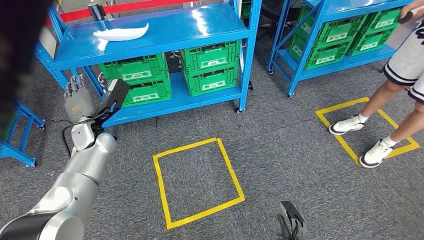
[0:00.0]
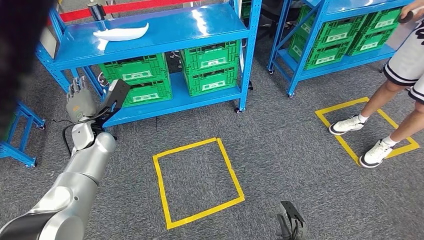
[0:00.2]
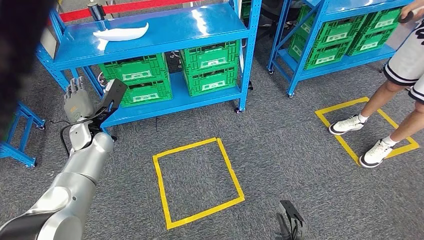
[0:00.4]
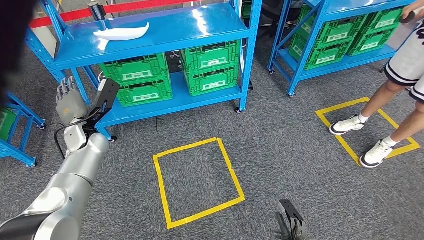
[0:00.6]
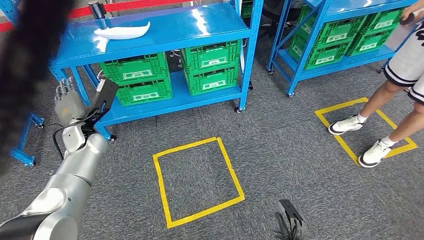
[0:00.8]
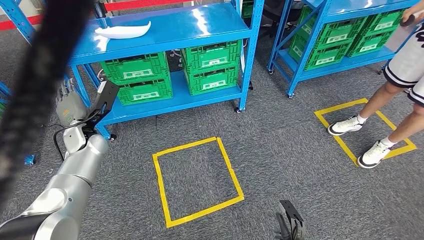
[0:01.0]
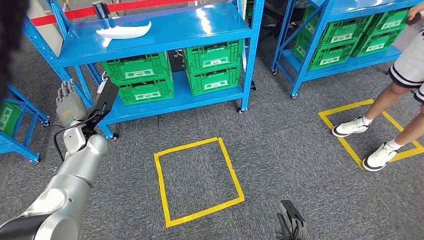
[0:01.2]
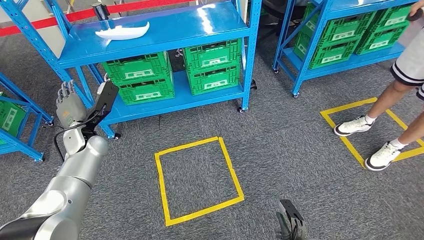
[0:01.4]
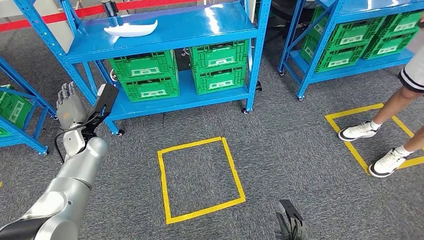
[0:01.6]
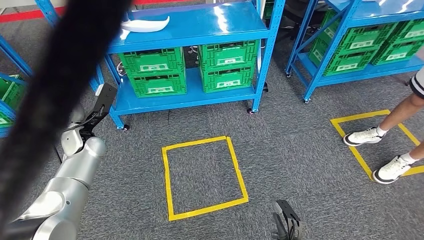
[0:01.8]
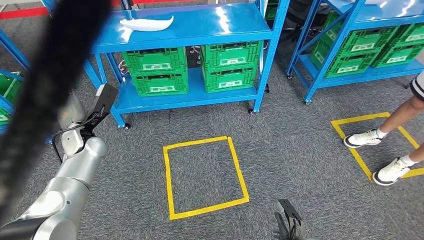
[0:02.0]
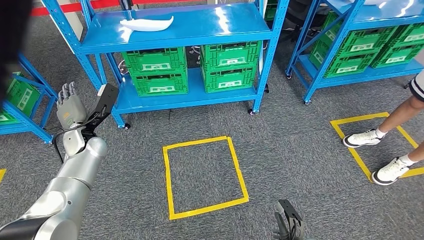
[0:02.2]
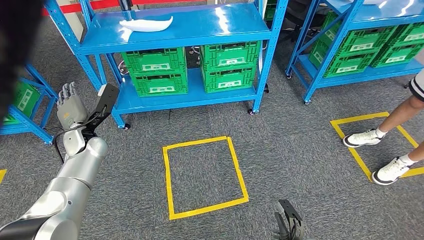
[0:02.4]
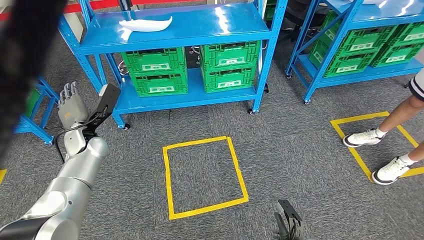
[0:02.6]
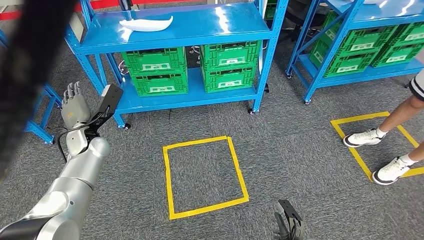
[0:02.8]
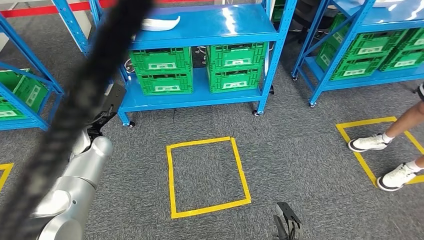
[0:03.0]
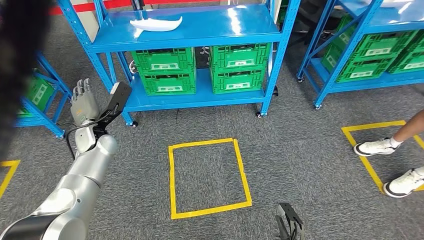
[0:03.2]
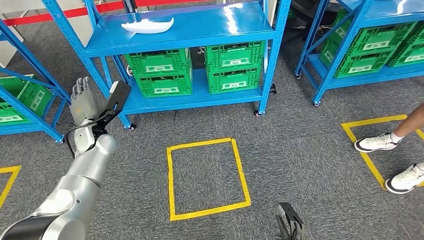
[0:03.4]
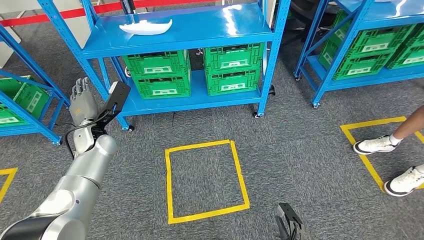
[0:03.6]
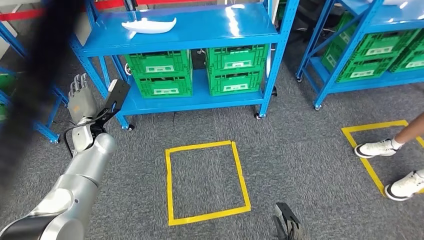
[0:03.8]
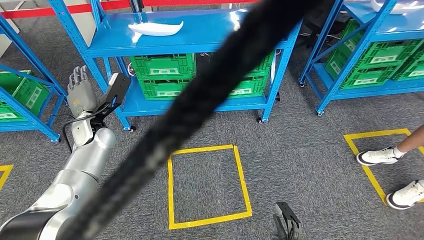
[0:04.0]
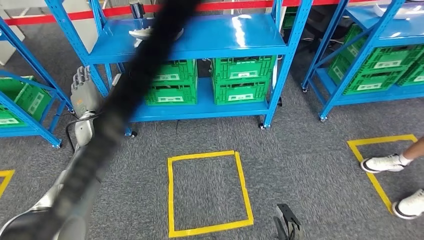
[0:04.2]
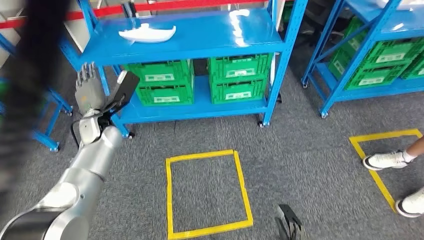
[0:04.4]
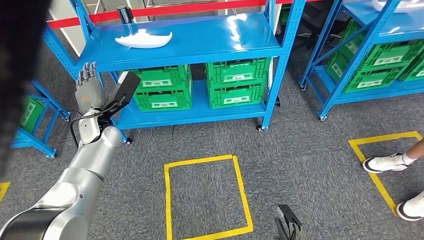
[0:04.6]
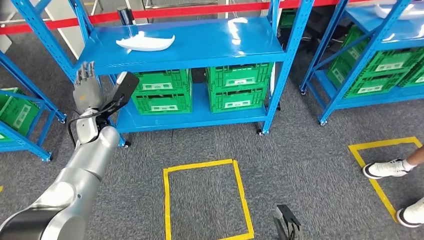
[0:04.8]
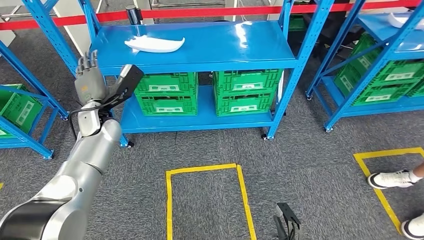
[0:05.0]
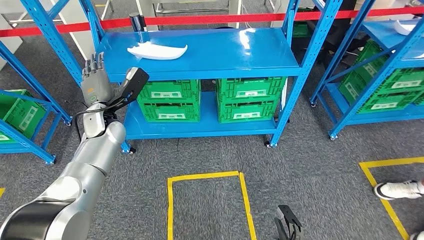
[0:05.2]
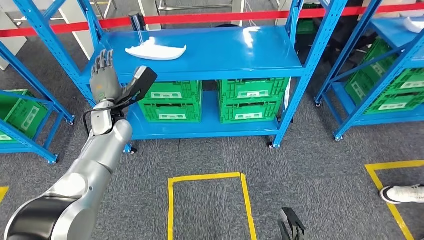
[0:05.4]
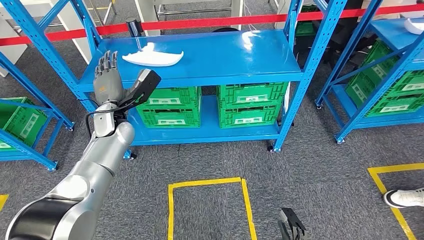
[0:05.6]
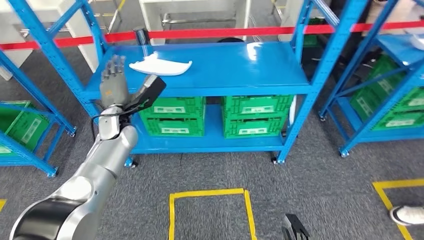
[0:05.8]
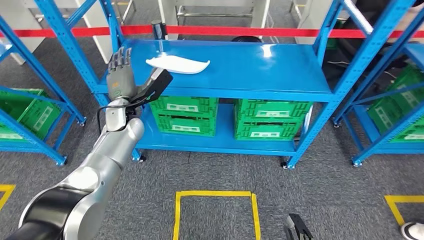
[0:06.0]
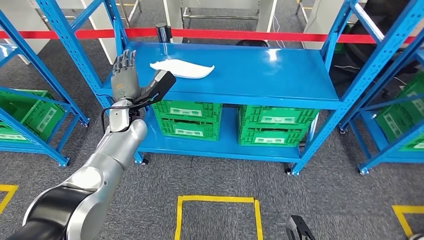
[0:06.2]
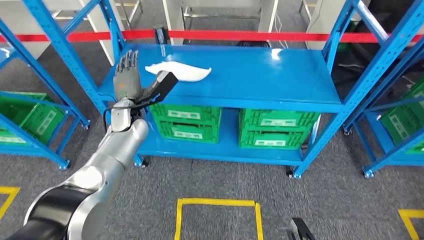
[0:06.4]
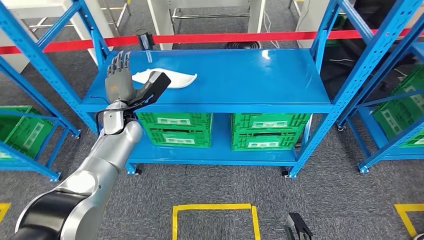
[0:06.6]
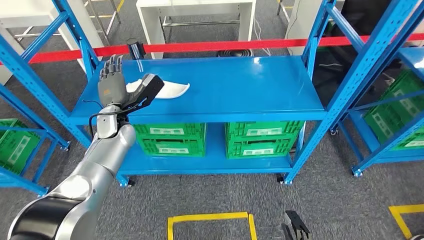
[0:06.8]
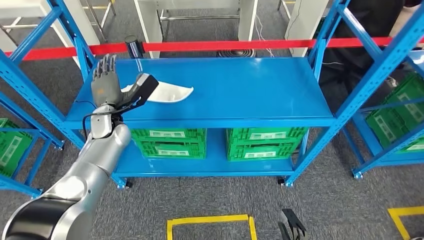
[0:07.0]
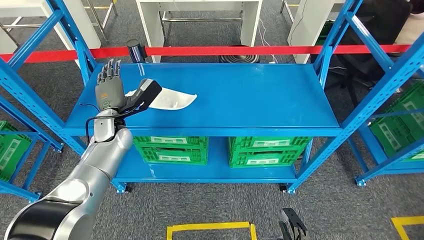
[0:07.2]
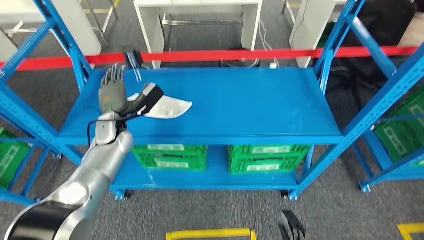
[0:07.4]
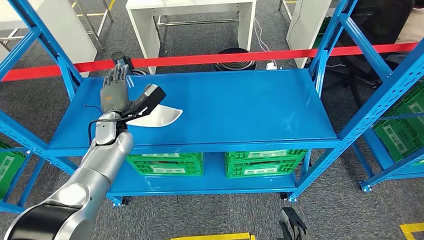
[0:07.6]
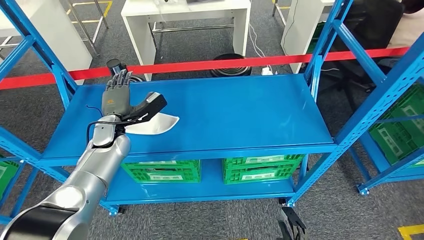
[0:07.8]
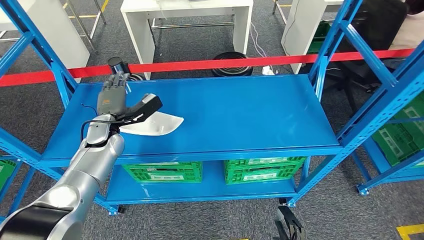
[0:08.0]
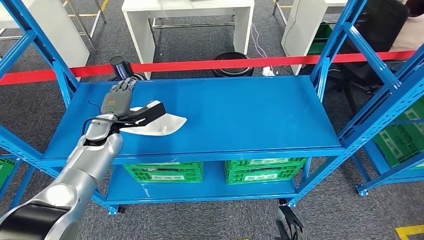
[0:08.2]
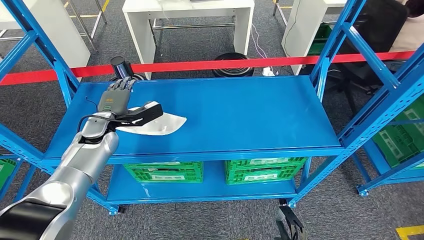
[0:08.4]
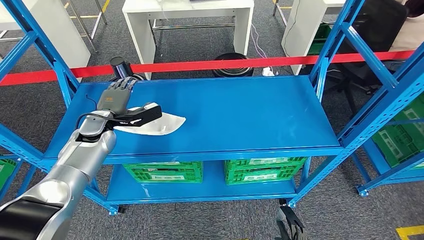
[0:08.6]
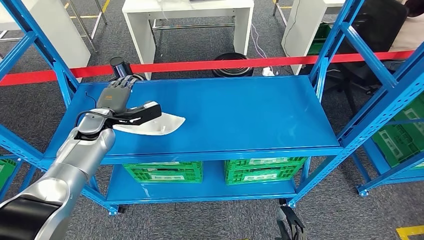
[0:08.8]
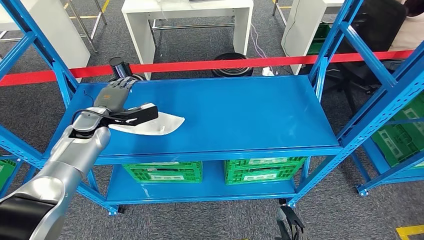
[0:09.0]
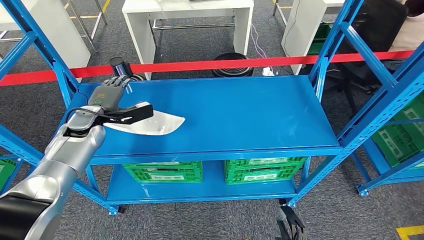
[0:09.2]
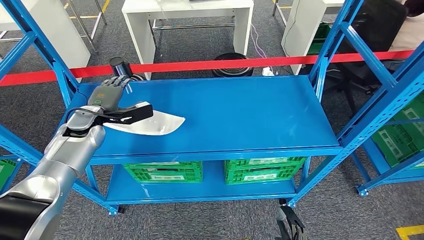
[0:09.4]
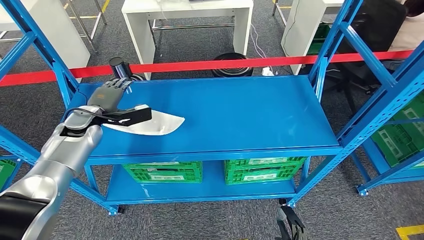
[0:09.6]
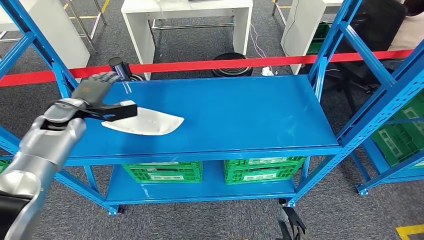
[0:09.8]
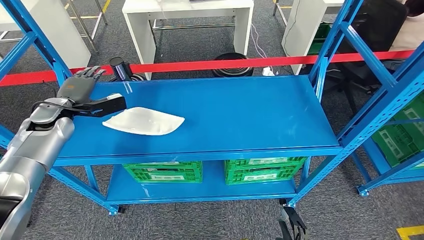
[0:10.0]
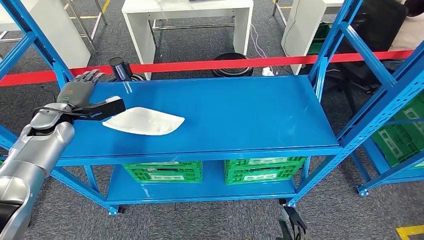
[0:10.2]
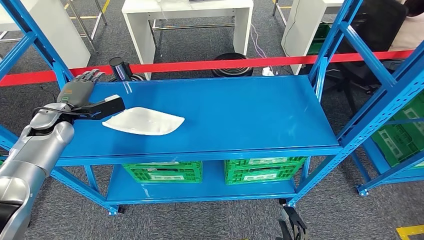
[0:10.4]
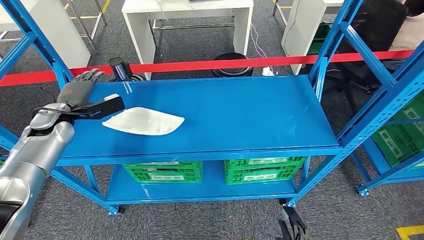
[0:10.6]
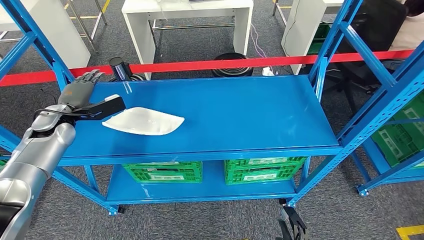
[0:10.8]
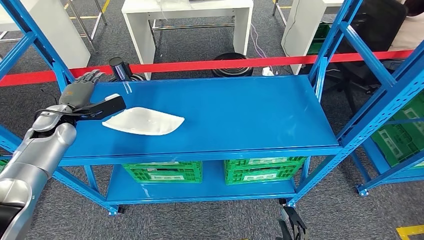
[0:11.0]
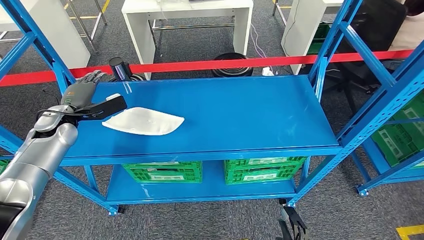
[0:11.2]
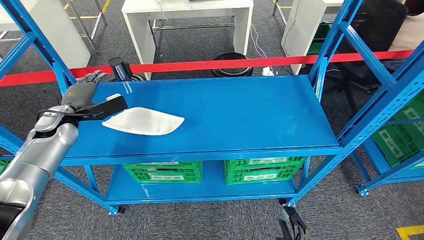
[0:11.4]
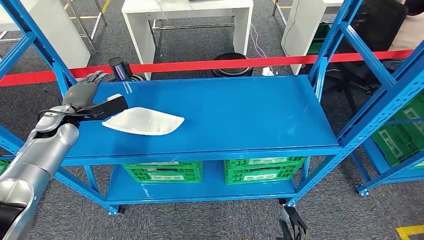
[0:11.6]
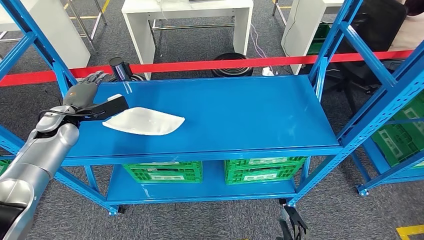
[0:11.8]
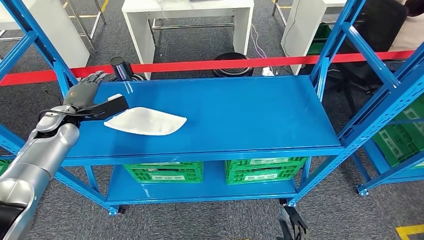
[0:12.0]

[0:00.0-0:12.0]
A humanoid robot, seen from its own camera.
0:09.0 to 0:10.4: The left hand is displaced to the left by about 10 cm.
0:10.4 to 0:12.0: There are only small adjustments of the hands.

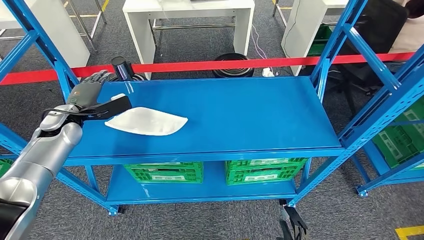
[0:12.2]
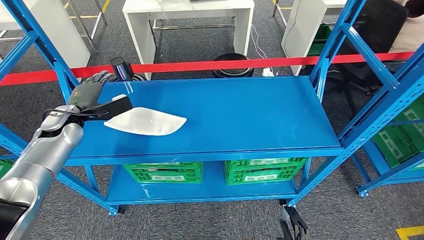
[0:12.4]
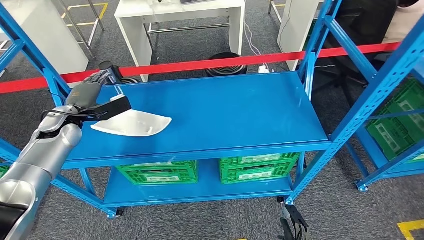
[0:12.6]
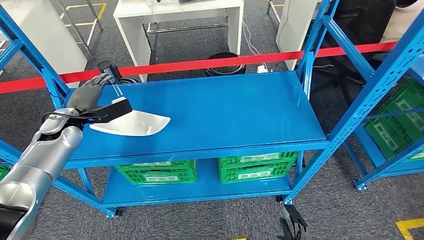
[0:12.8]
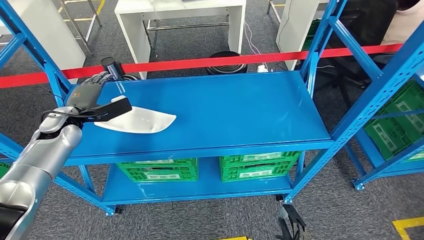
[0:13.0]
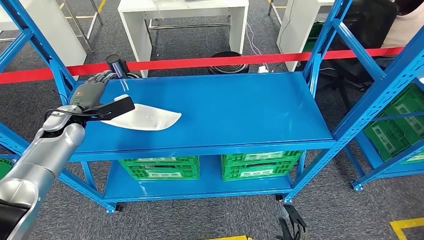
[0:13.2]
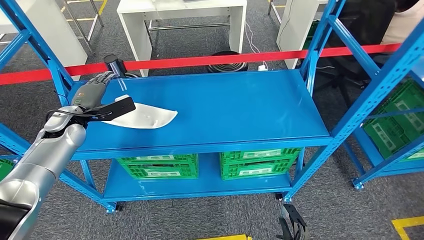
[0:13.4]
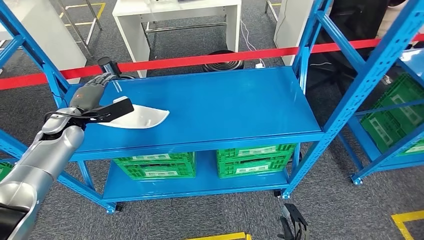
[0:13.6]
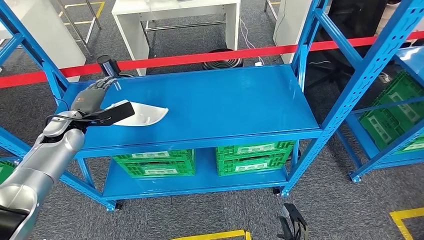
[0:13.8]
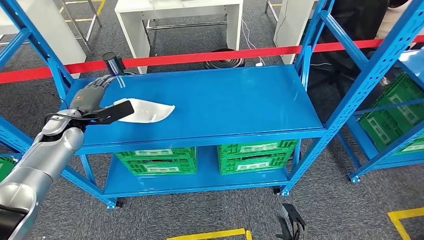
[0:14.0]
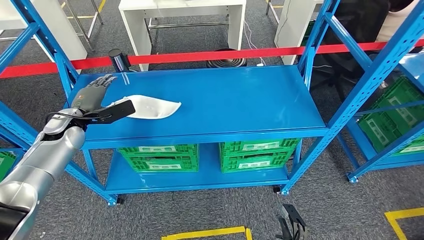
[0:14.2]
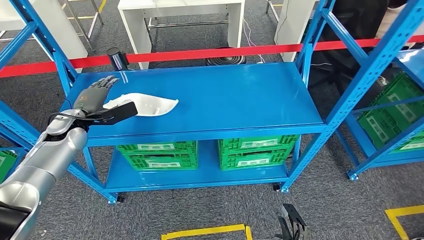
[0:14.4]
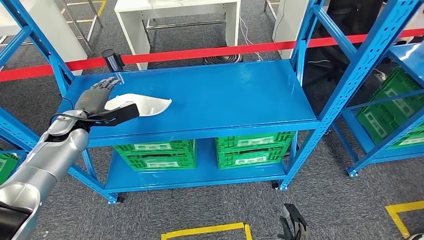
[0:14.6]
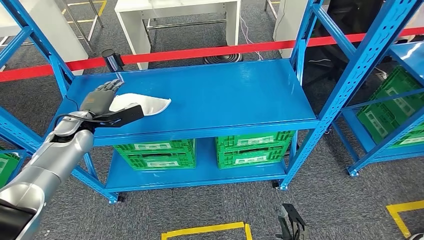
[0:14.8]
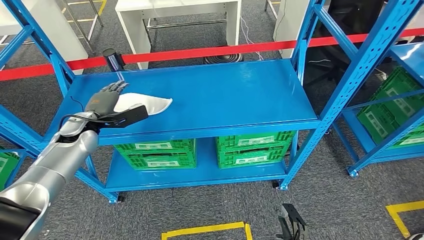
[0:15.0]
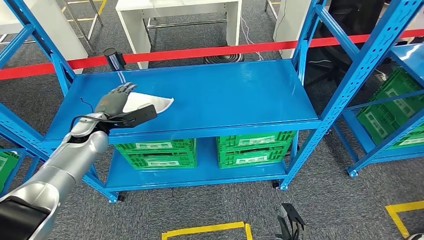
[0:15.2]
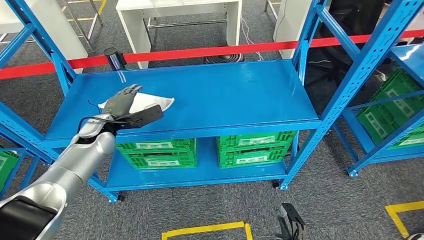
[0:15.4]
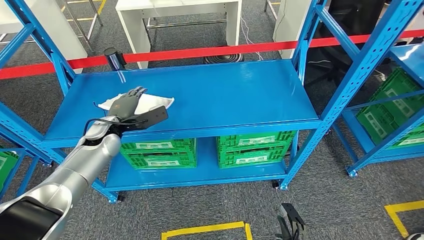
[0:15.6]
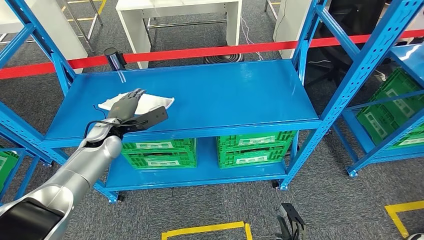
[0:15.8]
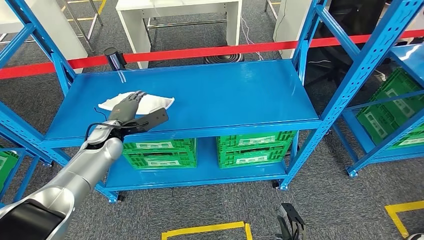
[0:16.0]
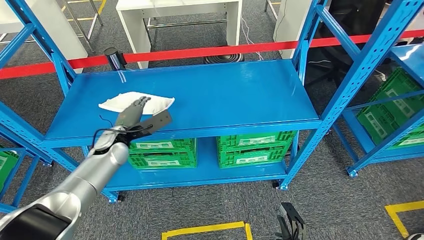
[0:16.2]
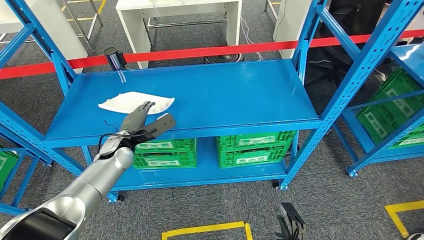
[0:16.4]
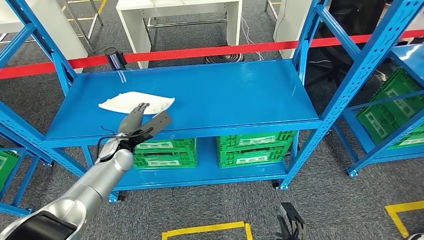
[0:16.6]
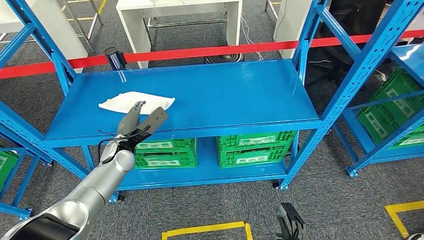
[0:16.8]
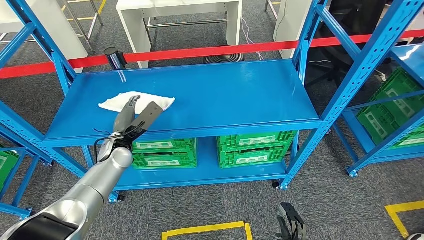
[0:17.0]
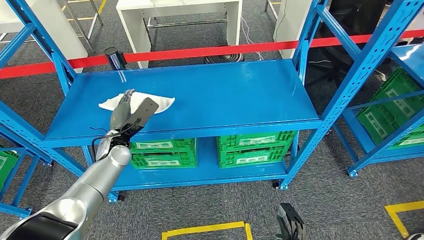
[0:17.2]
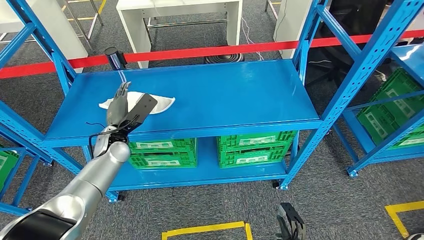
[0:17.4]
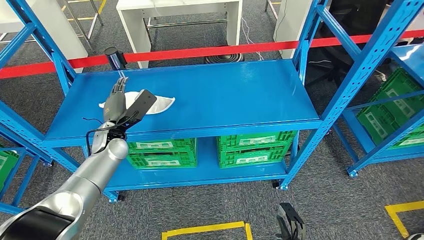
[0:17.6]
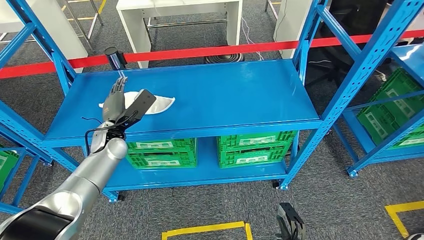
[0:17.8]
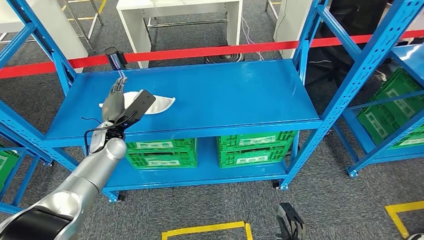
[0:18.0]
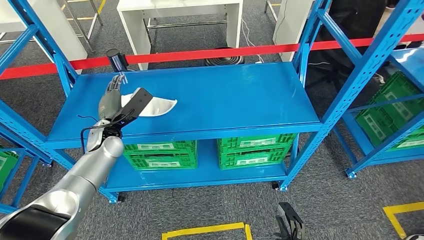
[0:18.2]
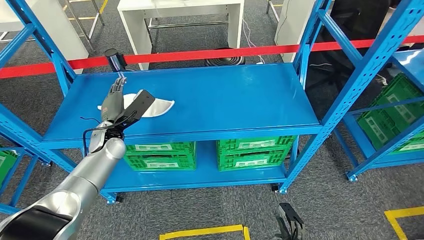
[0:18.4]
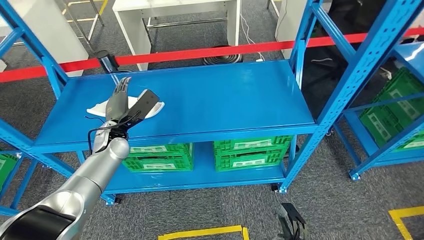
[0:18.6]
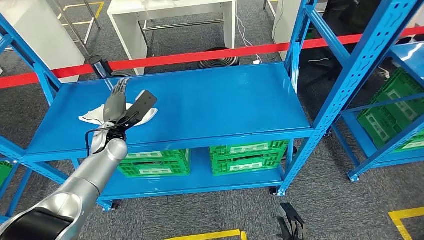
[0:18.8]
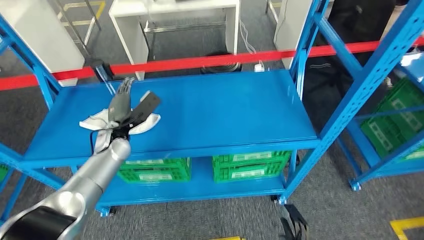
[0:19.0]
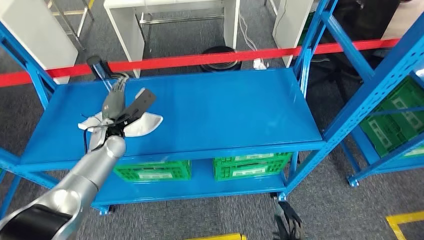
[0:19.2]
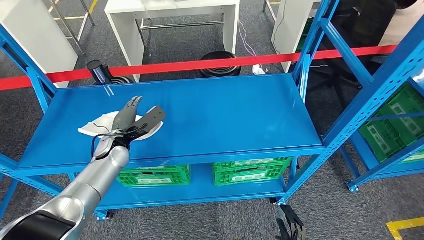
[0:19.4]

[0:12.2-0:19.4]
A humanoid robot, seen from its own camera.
0:15.0 to 0:16.6: The left hand moves to the right and downward, roughly 10 cm.
